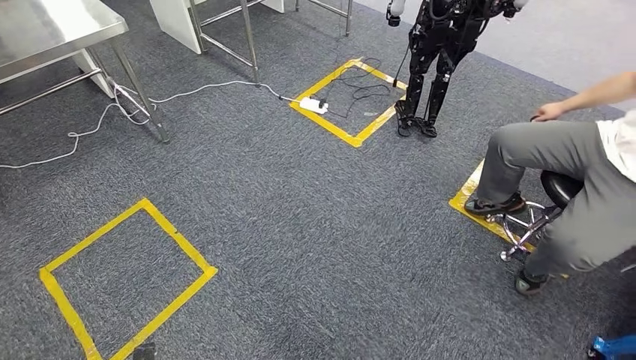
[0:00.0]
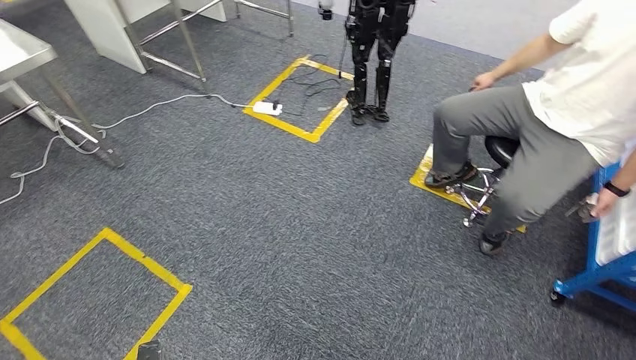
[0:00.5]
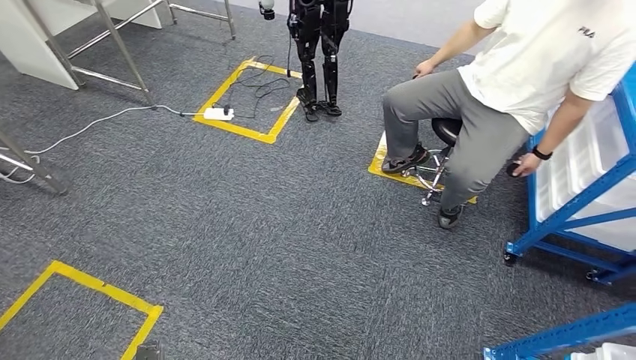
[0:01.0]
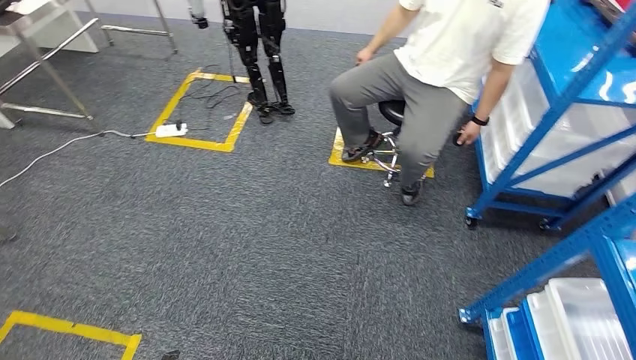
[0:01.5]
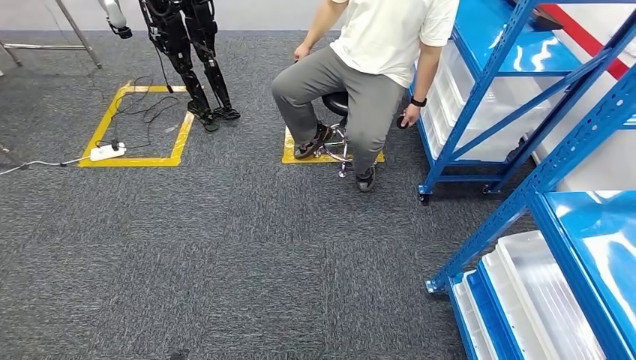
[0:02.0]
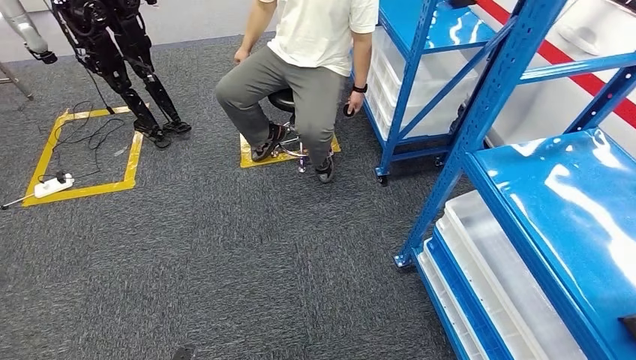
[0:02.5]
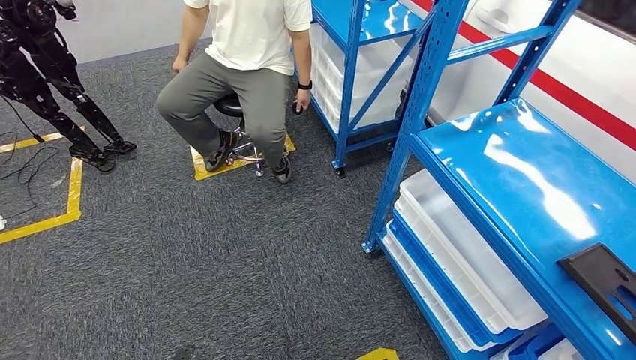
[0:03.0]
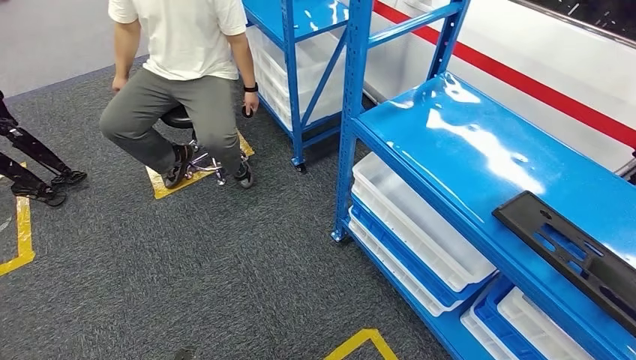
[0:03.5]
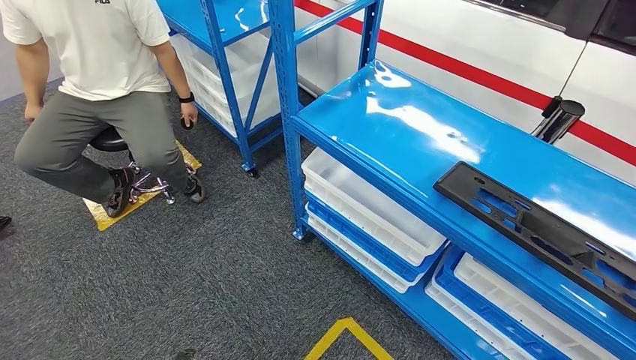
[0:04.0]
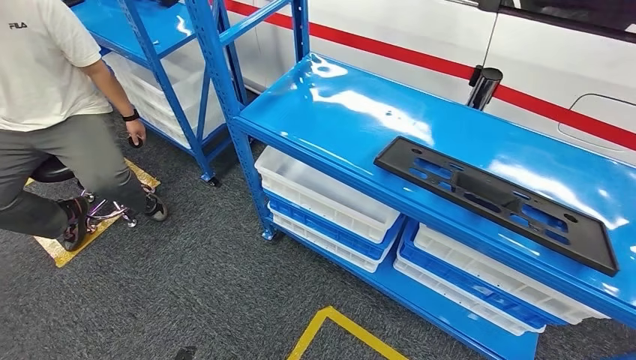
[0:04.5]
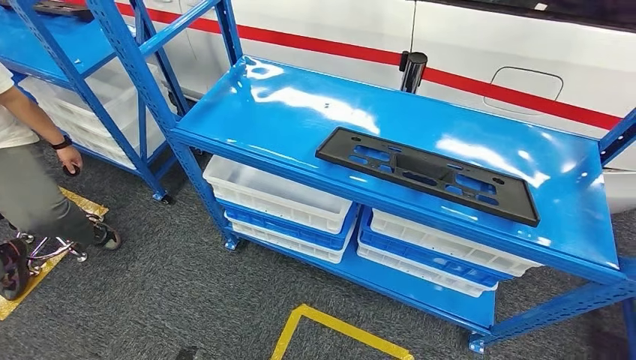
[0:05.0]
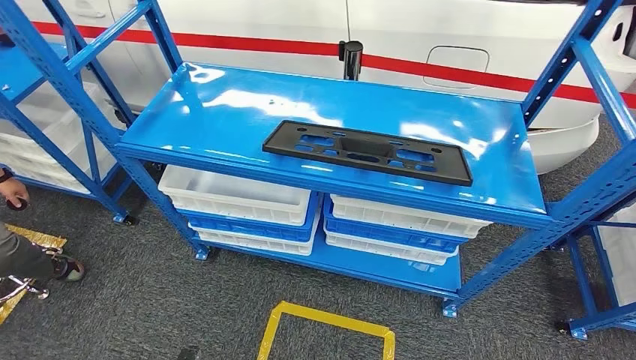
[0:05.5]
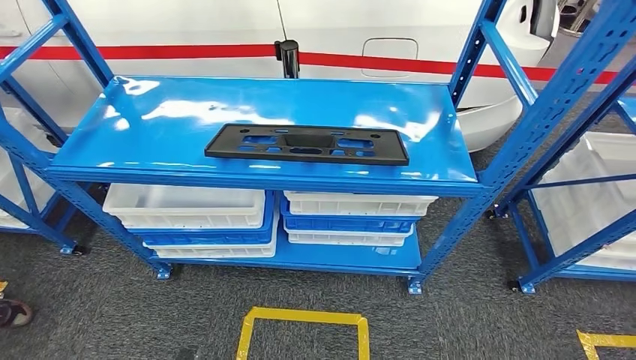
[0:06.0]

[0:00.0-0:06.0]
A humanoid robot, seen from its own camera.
Step, 0:00.0 to 0:06.0: Move to the initial position of the shelf.
